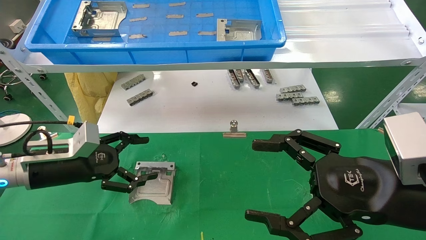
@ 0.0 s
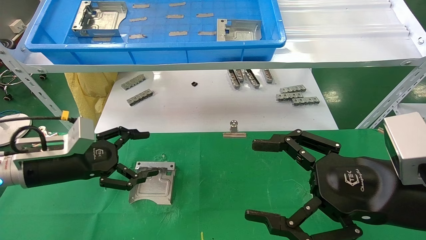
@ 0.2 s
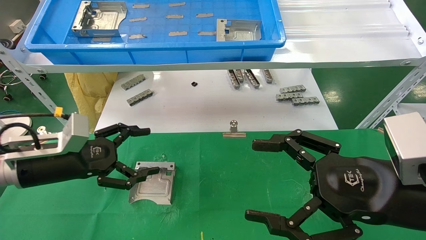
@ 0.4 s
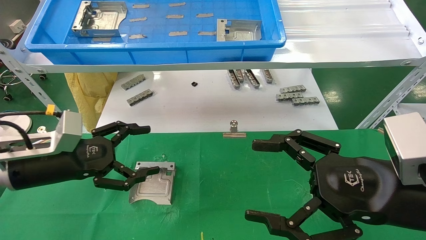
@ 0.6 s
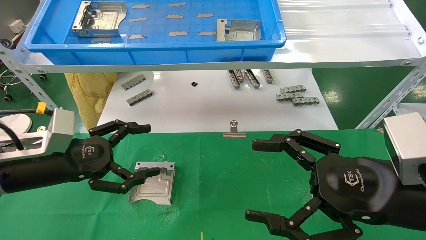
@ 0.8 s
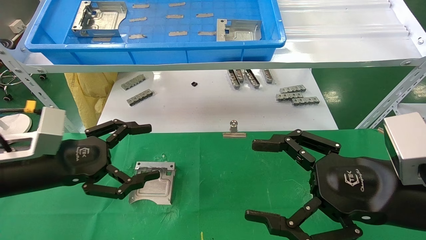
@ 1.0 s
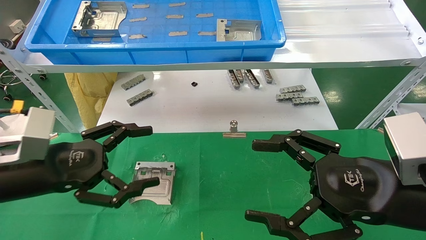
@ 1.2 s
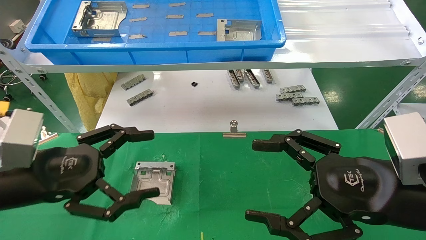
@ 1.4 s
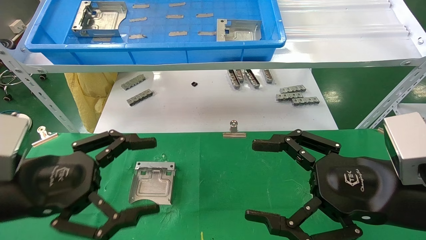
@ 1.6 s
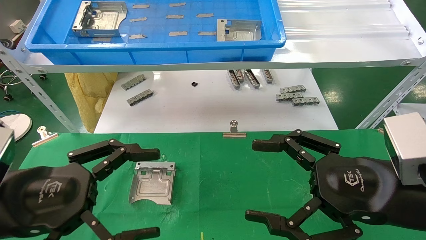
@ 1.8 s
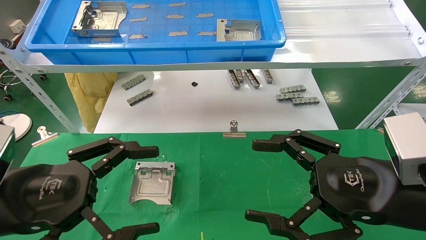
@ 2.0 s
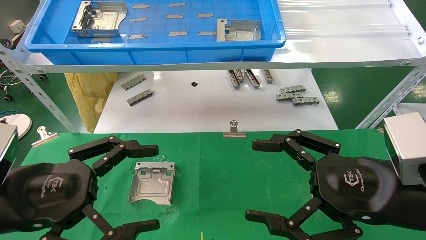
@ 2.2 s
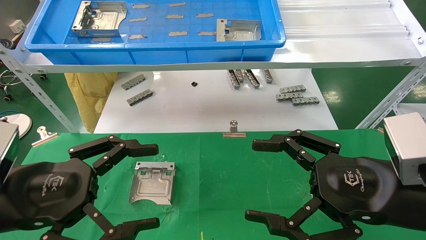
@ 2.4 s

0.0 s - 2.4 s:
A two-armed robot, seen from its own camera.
Task of the whole recording: use the mechanical arm to pick up the parts and place them on the table.
0.0 s - 1.2 s: The left gripper travels backward by about 10 cm.
1.2 s - 2.4 s: The left gripper travels backward by roughly 5 cm.

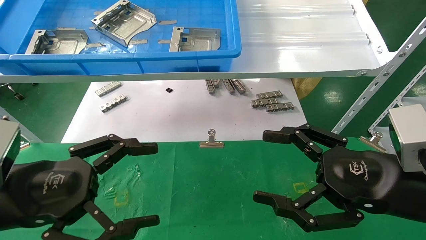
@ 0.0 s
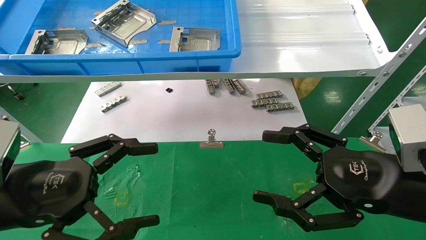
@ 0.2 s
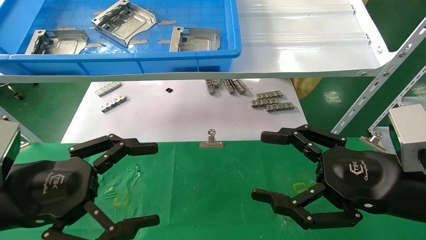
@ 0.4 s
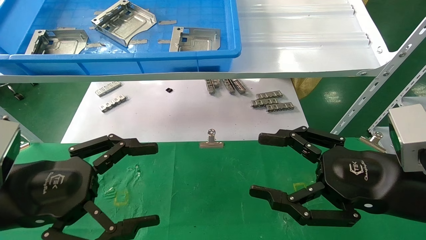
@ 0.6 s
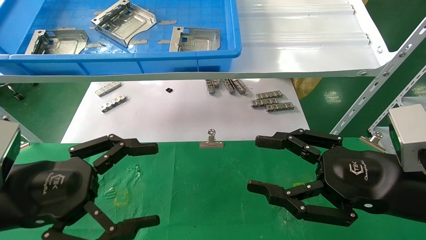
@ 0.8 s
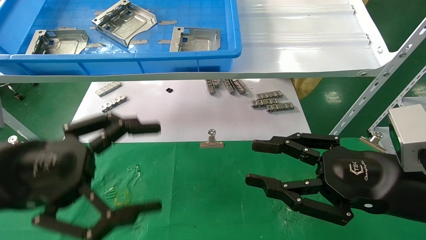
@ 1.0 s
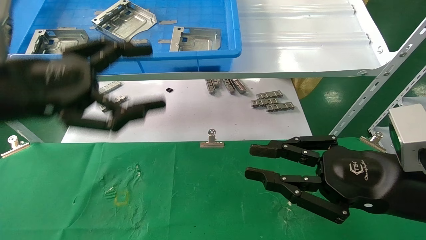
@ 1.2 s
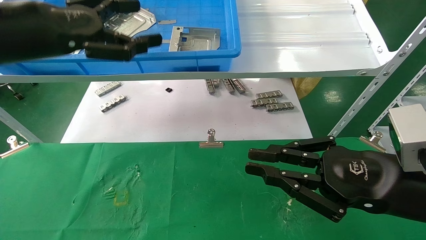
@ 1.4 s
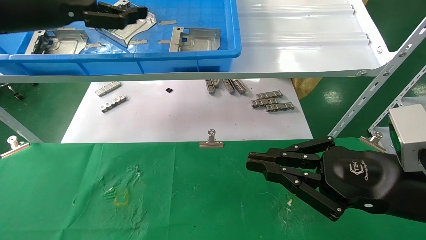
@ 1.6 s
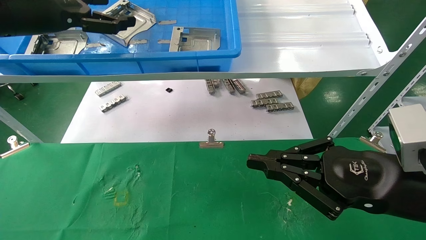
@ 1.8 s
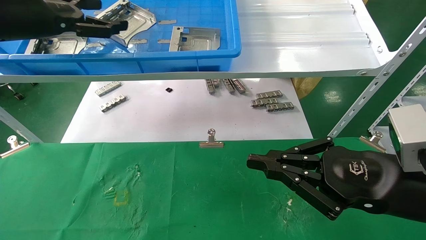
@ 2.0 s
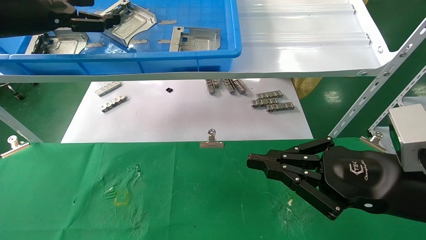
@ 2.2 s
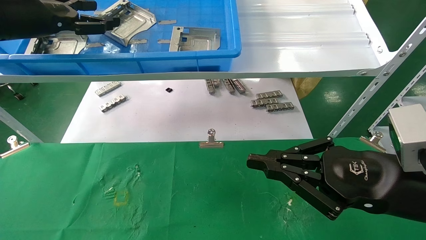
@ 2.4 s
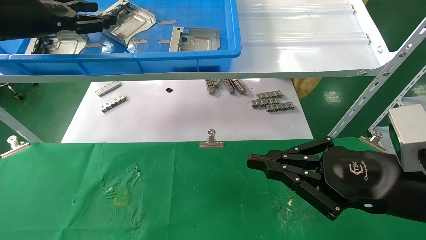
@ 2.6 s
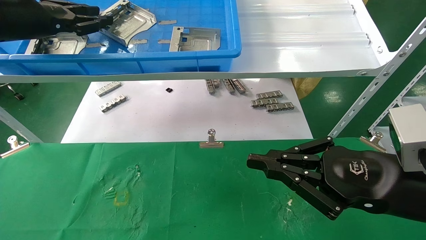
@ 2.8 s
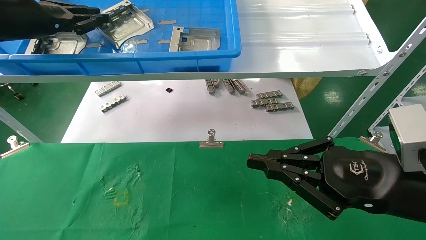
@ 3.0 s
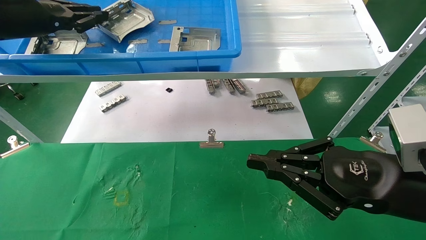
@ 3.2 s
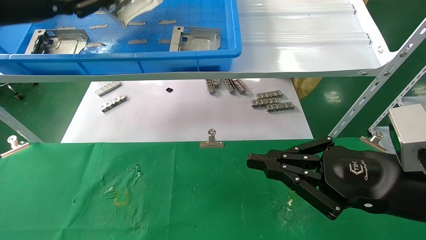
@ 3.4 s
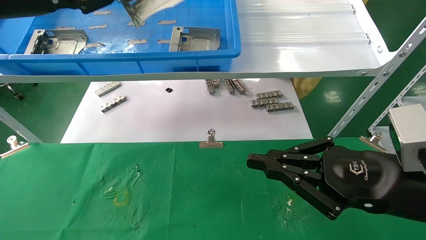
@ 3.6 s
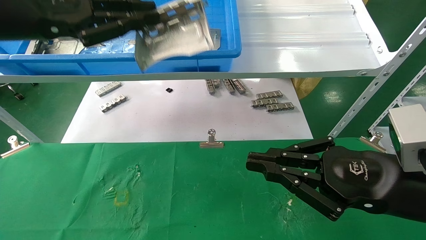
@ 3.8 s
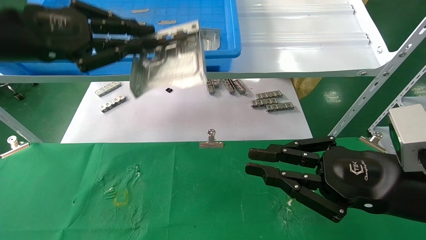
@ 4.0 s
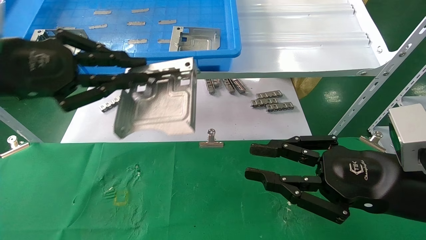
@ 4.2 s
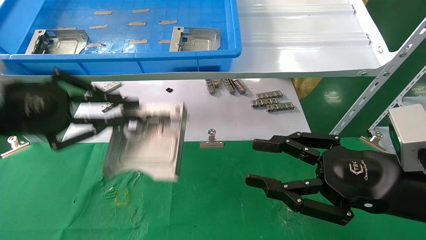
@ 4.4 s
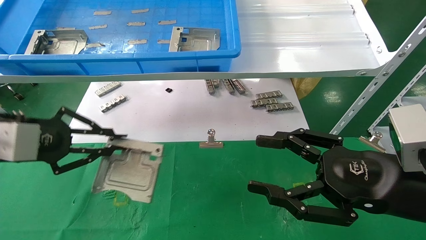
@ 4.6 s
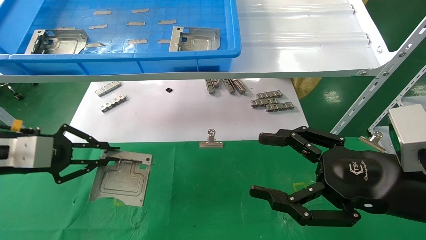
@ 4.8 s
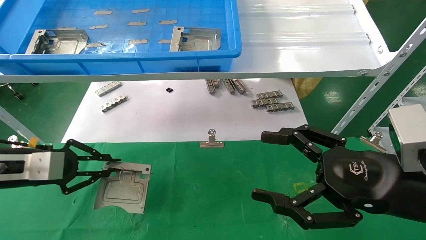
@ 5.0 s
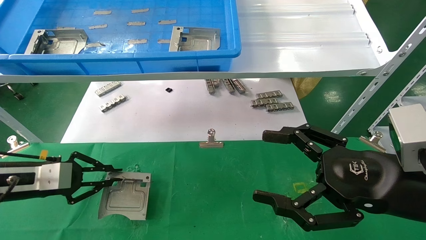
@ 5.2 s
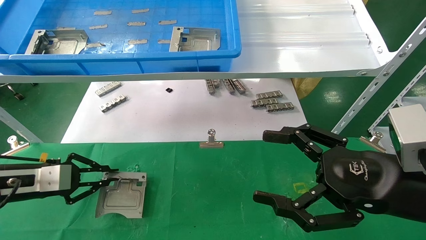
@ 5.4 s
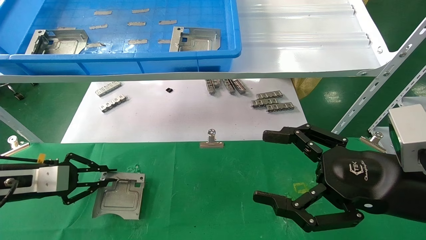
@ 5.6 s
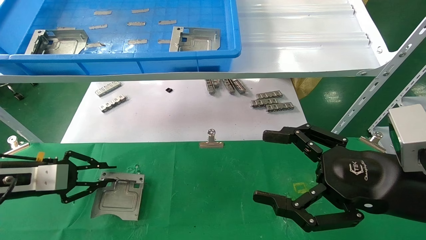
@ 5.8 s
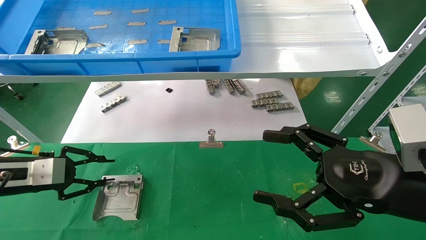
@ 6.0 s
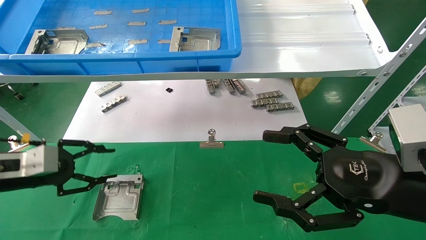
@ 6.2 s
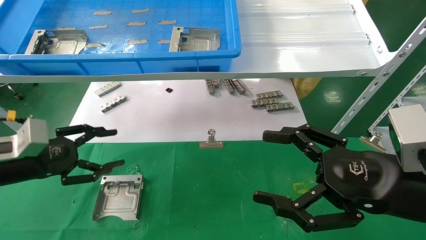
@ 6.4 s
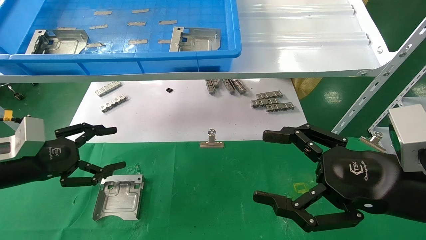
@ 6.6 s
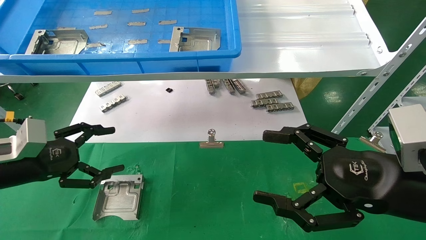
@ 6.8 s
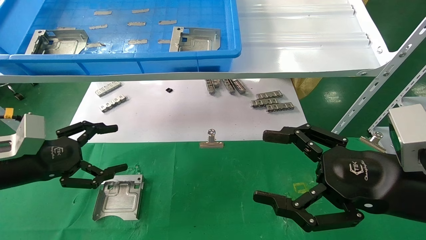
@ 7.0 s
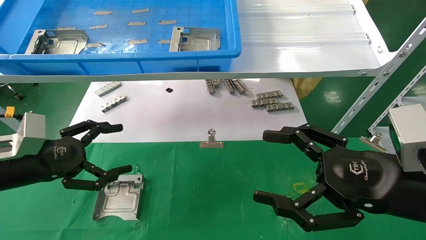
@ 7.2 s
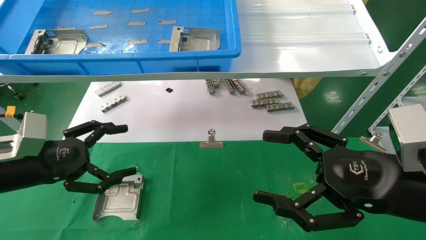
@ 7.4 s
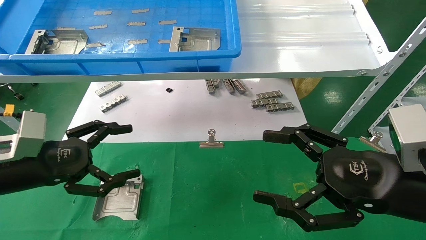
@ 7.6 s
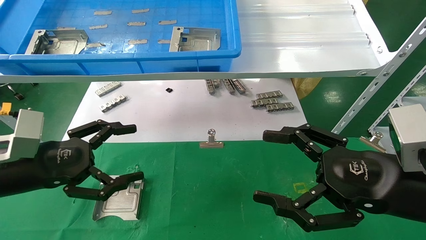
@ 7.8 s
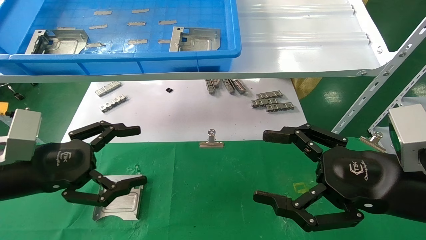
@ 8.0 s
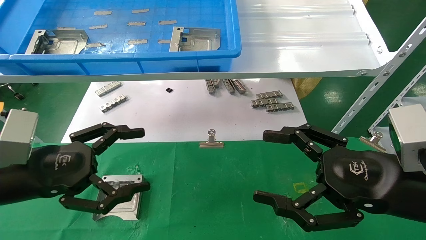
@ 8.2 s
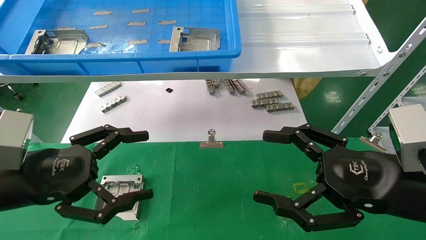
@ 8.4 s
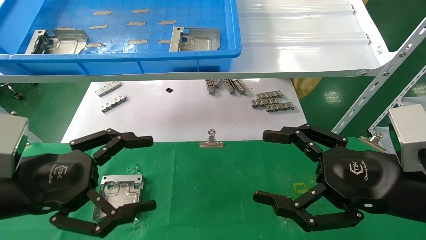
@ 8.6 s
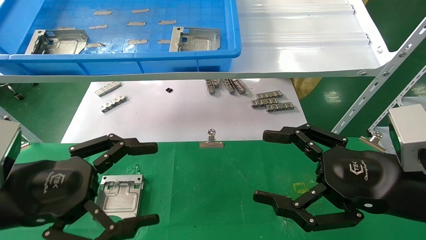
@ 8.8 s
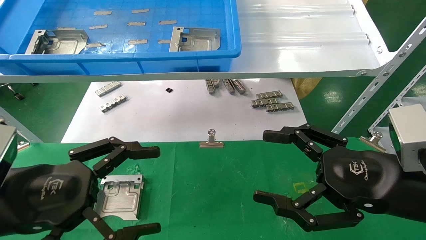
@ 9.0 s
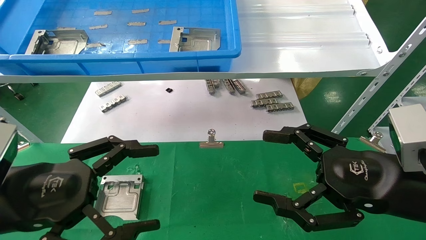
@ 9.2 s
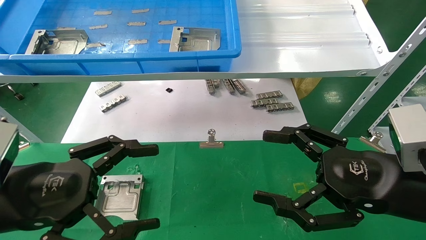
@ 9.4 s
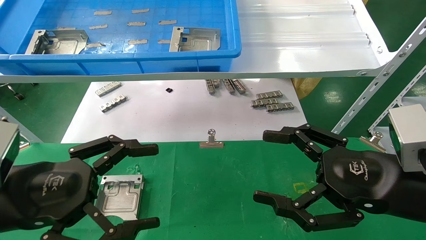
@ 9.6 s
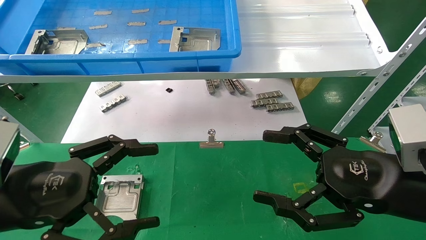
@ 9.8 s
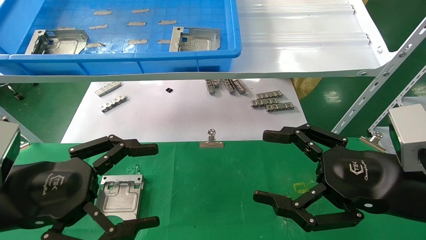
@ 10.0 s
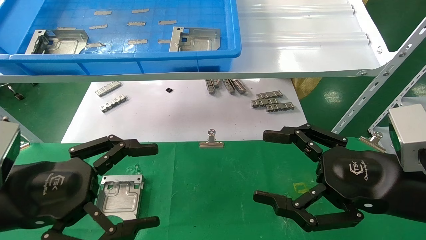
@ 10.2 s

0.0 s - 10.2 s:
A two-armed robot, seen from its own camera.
Task of the whole recording: use the mechanical arm to pick up the parts and place them on the table.
Step, 1.2 s - 3.2 s: Pick up the hard drive bracket from the feeding area.
Step, 3.4 s - 5.8 s: Place the hard drive bracket into the box.
0.0 s - 1.4 s: The right gripper closes up; the left gripper shifts some 20 cm upward and forward.
1.4 s - 3.0 s: The left gripper heads forward and to the left, covering some 10 cm, and closes.
3.0 s - 4.4 s: The left gripper shifts approximately 15 cm backward and downward, while the right gripper opens up.
4.4 s - 5.8 s: The left gripper travels downward, to the left and forward by approximately 20 cm; the right gripper opens.
5.8 s - 7.2 s: The left gripper shifts by roughly 5 cm, and opens up.
7.2 s - 8.8 s: The left gripper moves backward and to the right, roughly 15 cm.
8.8 s - 10.2 s: Both grippers stay put.
